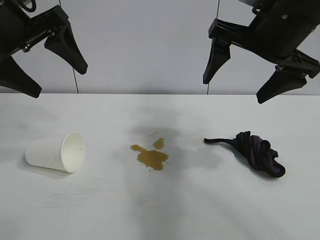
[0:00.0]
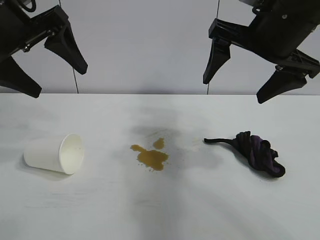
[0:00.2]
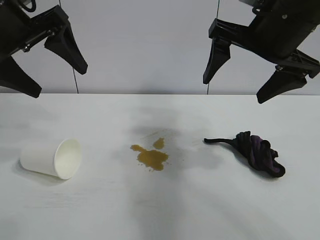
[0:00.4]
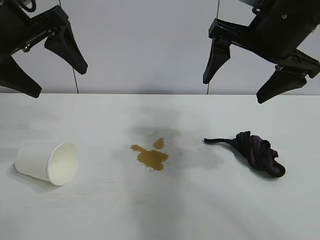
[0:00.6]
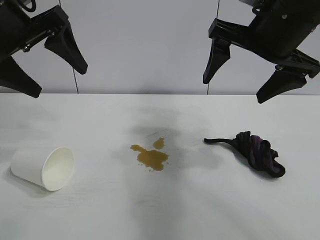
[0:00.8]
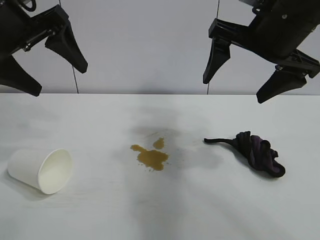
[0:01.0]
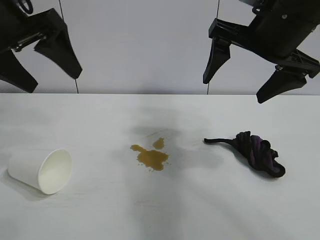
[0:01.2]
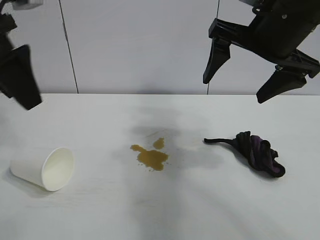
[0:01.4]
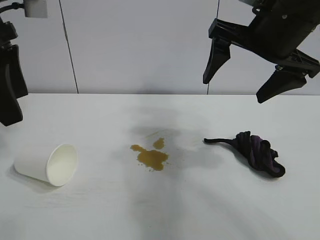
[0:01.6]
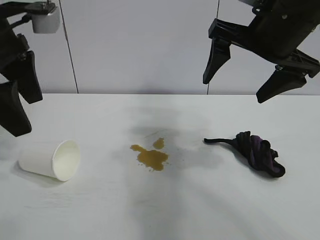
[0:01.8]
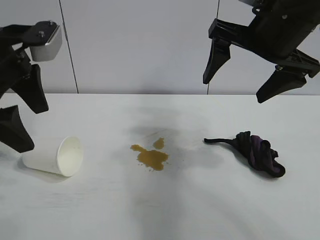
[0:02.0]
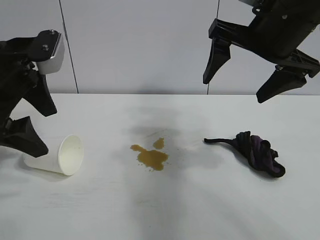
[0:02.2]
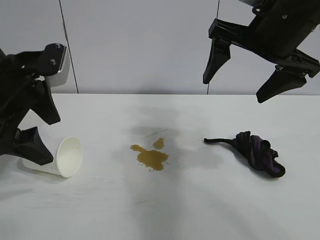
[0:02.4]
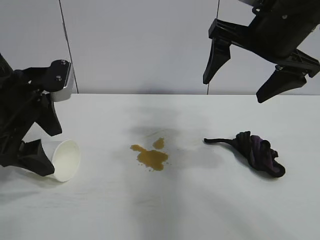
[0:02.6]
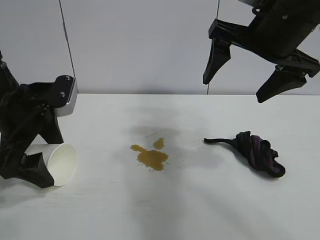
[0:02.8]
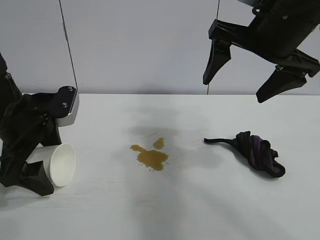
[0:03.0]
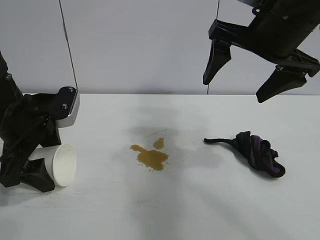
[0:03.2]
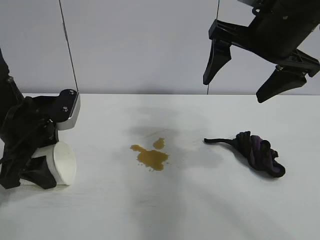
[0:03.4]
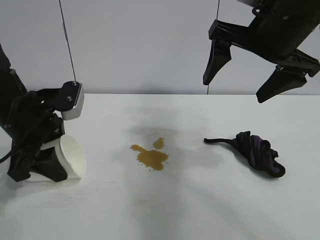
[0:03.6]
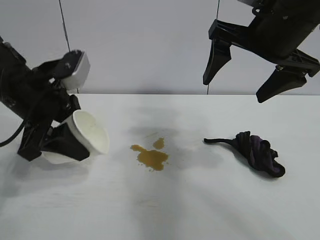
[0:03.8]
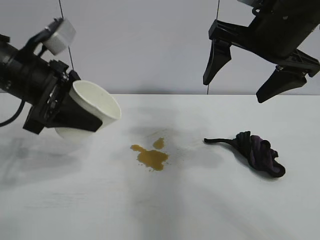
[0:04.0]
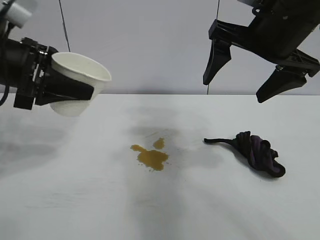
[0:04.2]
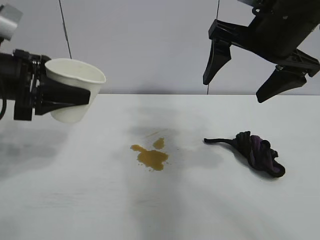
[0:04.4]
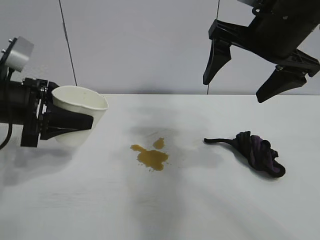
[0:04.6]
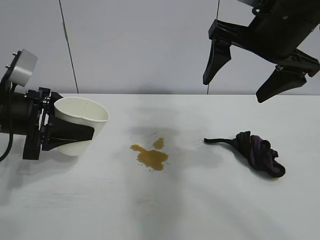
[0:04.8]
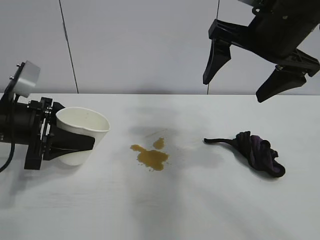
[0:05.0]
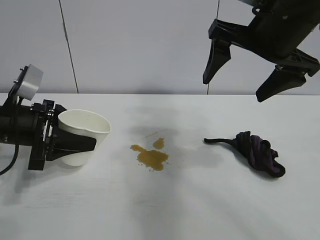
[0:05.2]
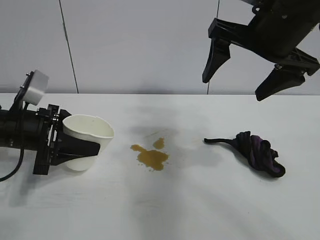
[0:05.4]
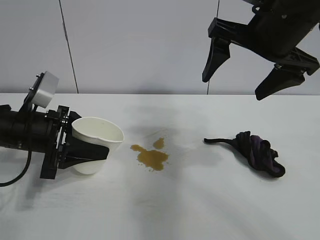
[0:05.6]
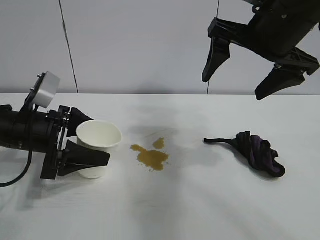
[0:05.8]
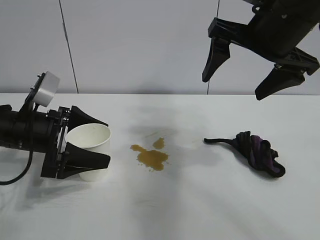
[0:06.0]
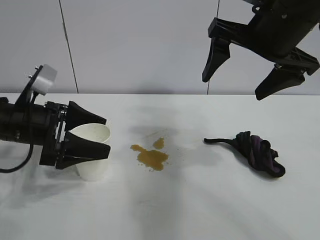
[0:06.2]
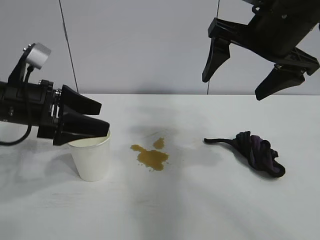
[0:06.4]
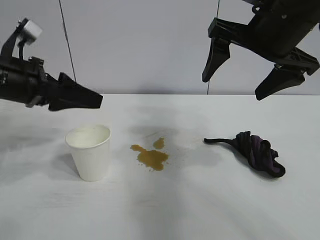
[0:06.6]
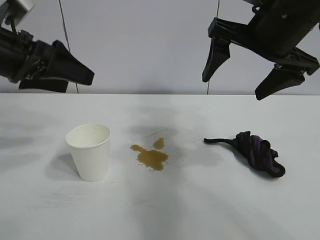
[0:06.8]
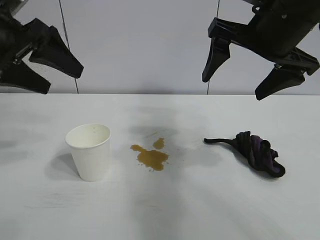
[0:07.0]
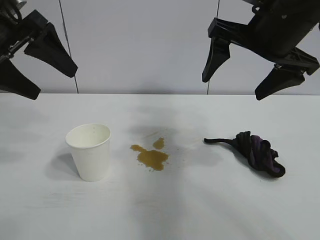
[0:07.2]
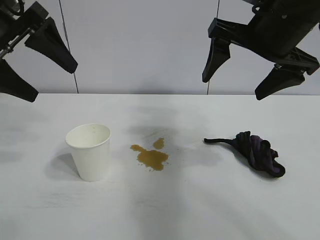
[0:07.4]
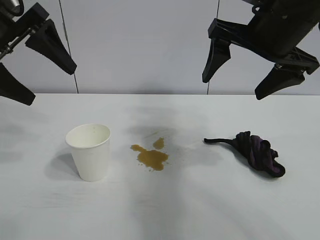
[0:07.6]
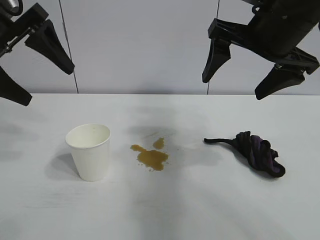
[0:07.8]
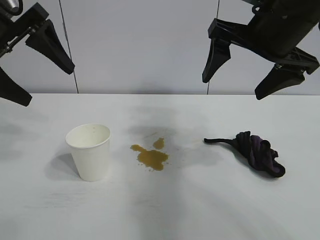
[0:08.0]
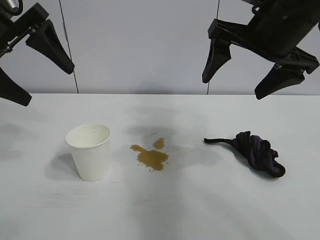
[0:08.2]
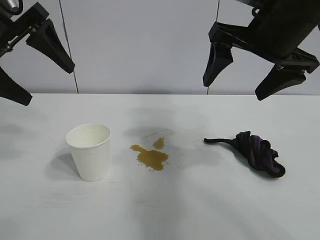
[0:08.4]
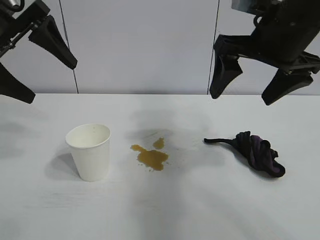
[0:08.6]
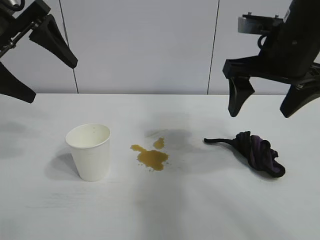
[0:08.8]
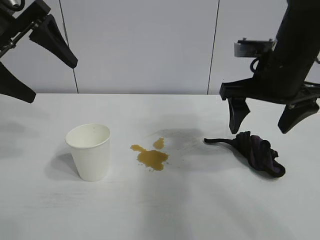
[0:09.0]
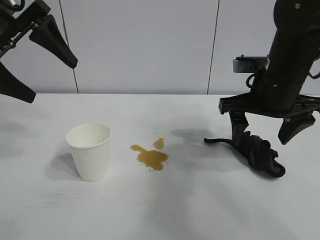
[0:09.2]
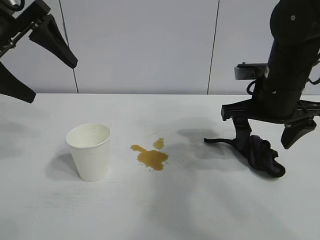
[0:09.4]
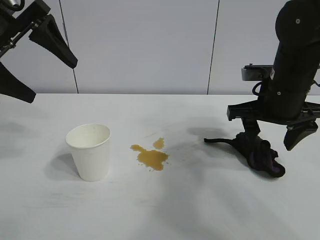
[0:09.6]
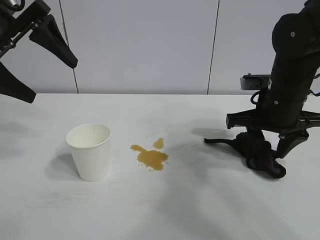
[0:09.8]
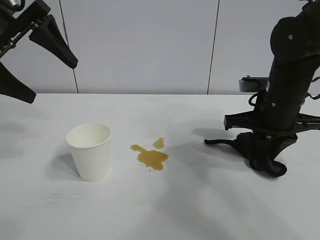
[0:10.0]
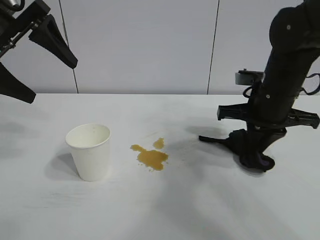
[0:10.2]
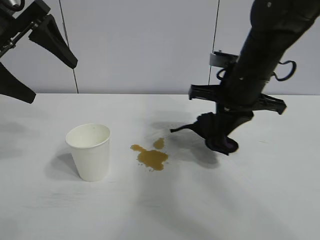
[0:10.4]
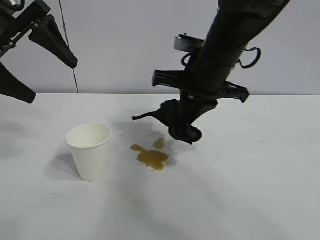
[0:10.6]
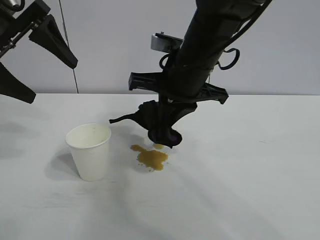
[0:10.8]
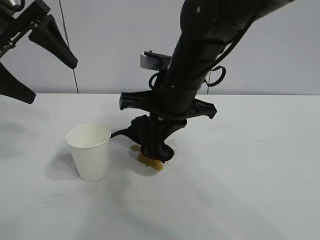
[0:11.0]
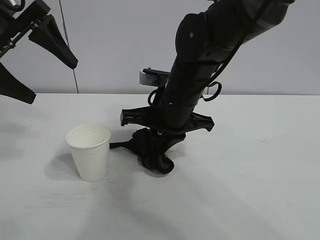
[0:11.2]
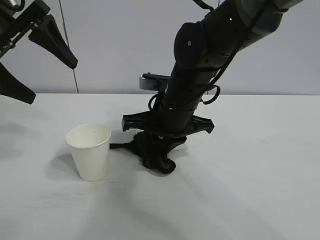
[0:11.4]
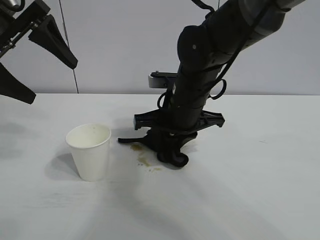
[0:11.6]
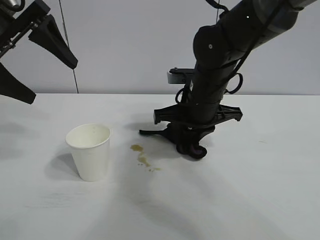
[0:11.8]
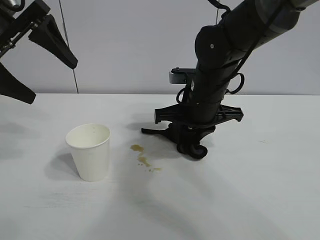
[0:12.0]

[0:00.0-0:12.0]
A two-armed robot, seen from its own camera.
Task of the whole recording: the left gripper pick up the fallen cup and place it upright, the right gripper grasp the black rag and wipe the stain on the table, the right gripper put the black rag back in its original position.
Step, 0:01.0 to 0:03.2: Grasp the paper cup with left gripper.
Step, 0:03.6 to 0:06.0: Stand the paper cup upright with left gripper.
Step, 0:06.2 to 0:10.0: Grasp the rag with right gripper.

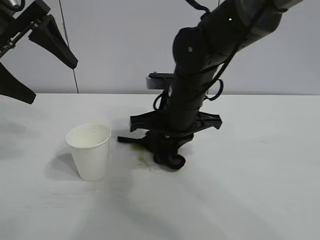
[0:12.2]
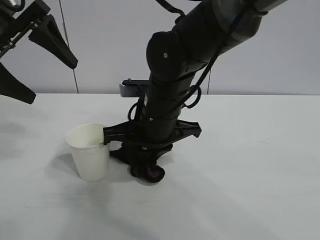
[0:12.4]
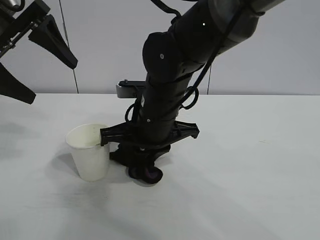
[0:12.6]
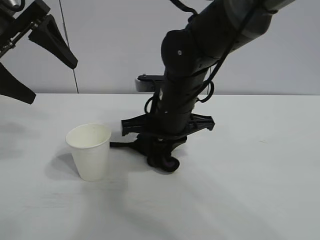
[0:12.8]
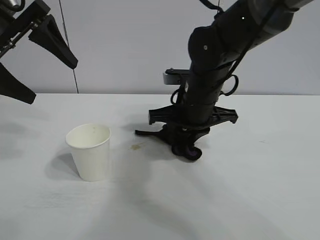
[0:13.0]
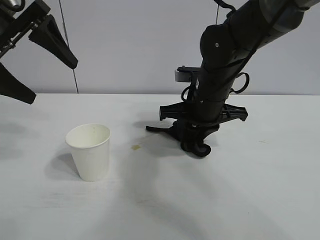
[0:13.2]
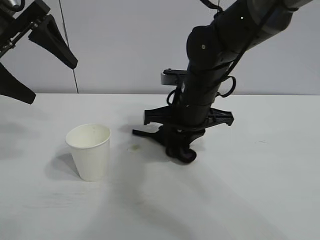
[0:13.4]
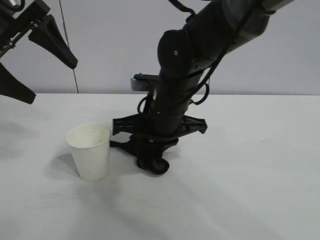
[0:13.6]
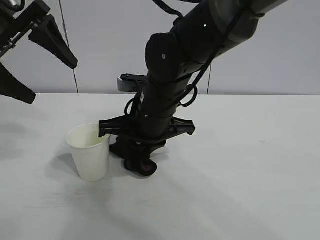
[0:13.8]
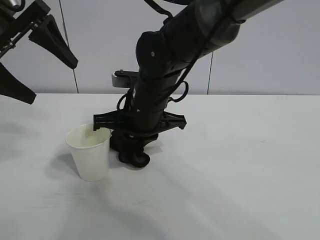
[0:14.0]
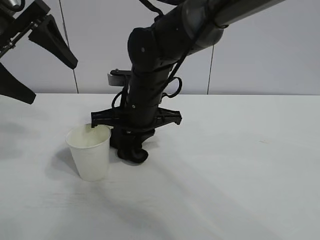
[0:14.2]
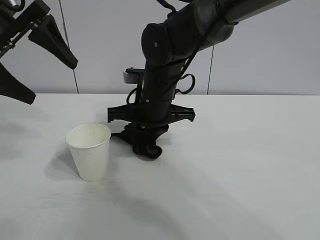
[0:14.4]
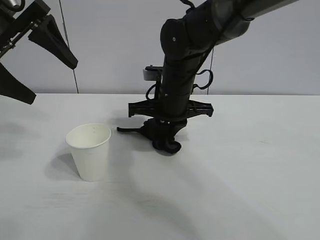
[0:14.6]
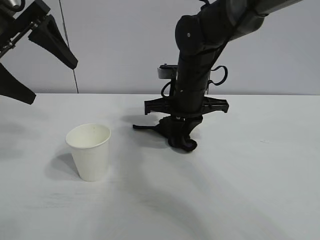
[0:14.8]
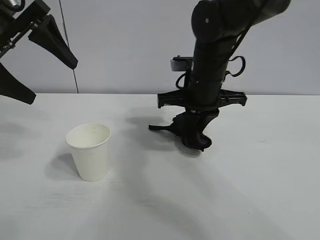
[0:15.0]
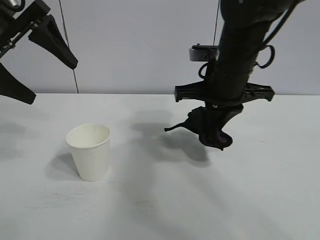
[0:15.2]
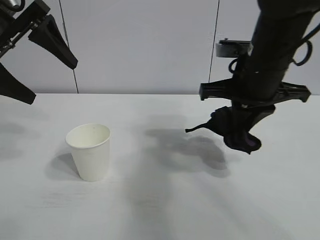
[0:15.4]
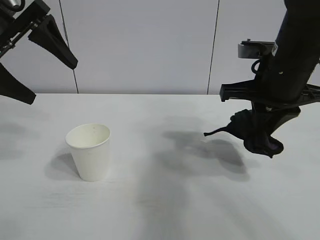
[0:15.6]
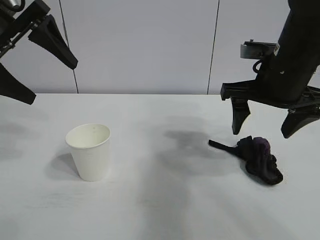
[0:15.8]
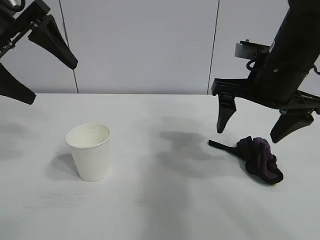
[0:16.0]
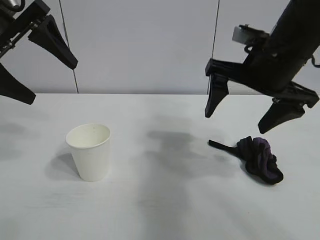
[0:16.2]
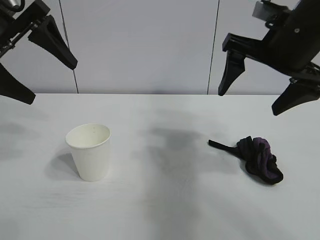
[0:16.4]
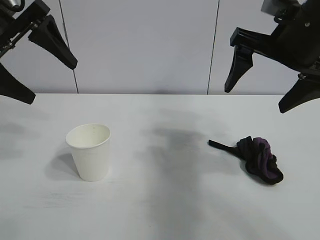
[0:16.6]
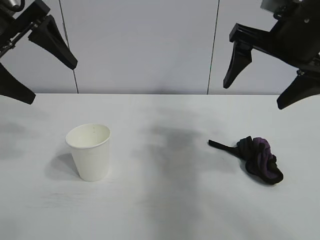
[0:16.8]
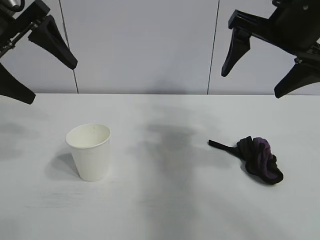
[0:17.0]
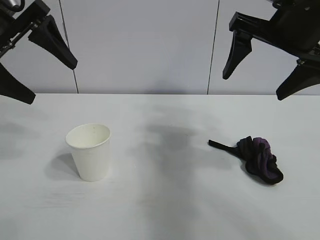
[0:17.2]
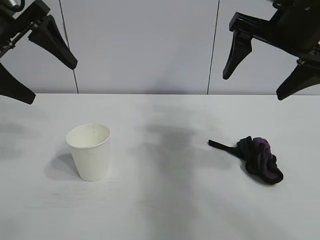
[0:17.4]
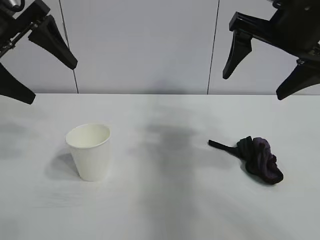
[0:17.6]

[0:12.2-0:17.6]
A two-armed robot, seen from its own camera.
Task of the whole recording: the left gripper pick up the fallen cup and place it upright, the right gripper grasp the black rag and wipe the stain on the table, the right gripper put the black rag back in its original position.
Step, 0:12.2 to 0:14.8: Wipe the stains off the table with the rag with right gripper.
Step, 0:15.0 to 0:15.6: Place the rag on the table with right gripper.

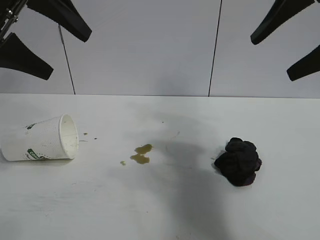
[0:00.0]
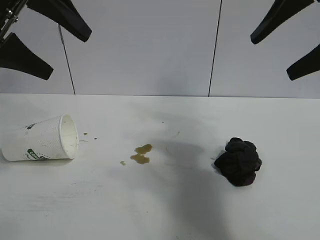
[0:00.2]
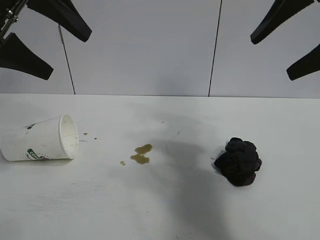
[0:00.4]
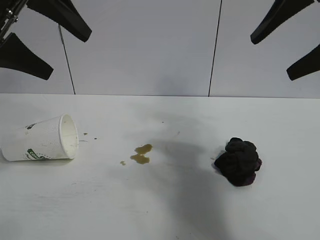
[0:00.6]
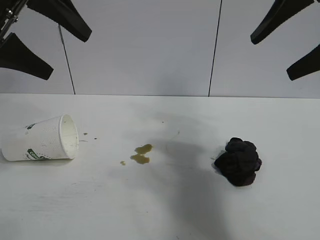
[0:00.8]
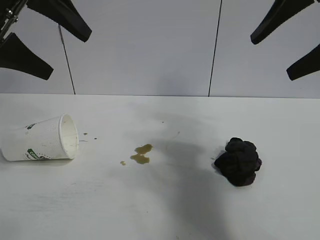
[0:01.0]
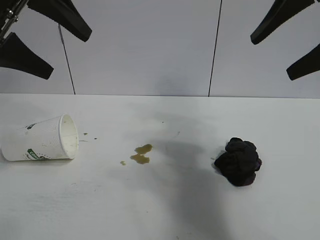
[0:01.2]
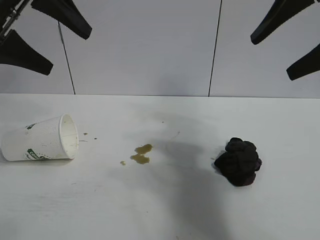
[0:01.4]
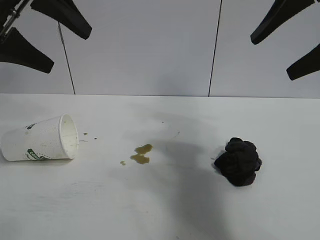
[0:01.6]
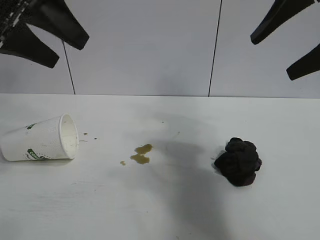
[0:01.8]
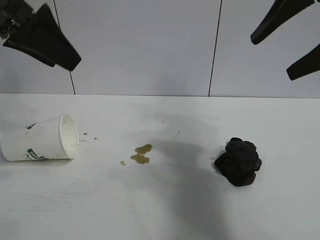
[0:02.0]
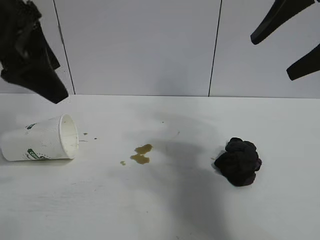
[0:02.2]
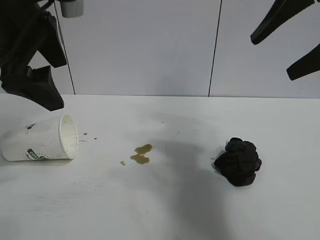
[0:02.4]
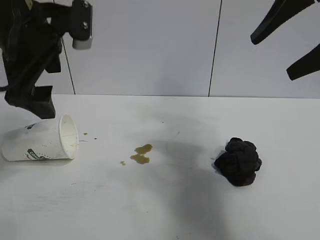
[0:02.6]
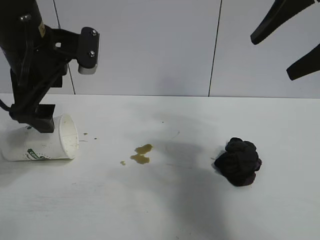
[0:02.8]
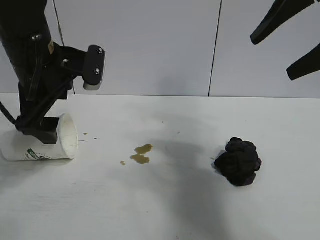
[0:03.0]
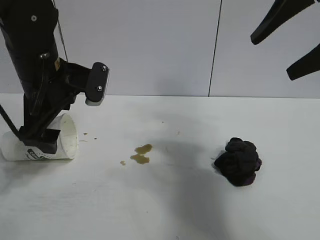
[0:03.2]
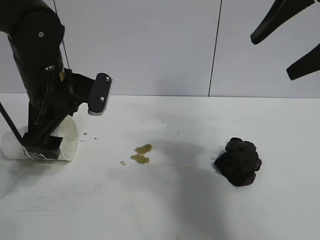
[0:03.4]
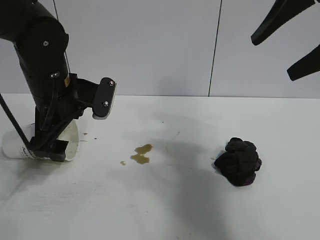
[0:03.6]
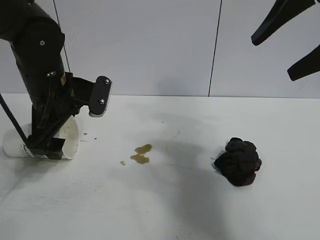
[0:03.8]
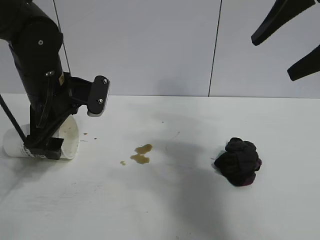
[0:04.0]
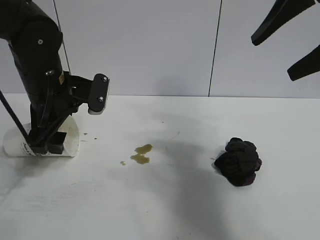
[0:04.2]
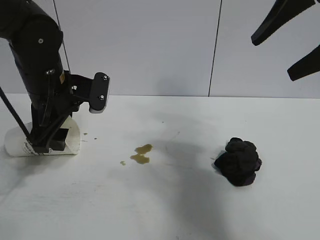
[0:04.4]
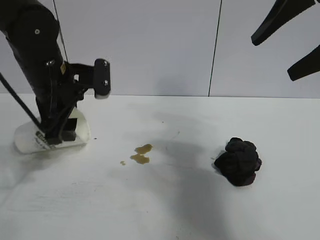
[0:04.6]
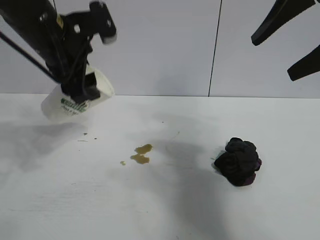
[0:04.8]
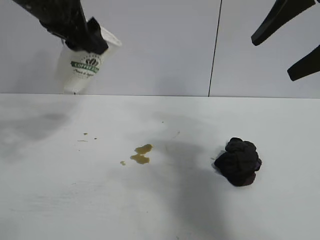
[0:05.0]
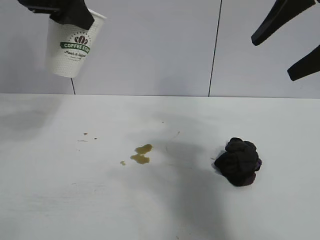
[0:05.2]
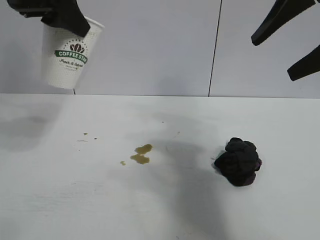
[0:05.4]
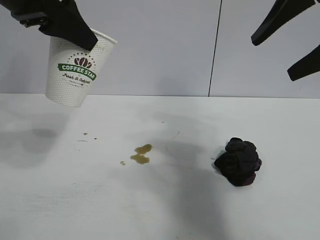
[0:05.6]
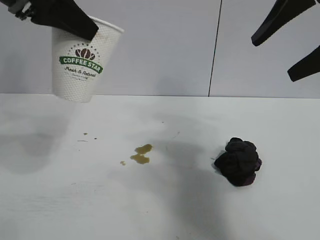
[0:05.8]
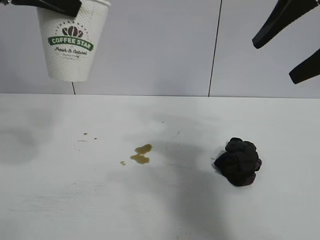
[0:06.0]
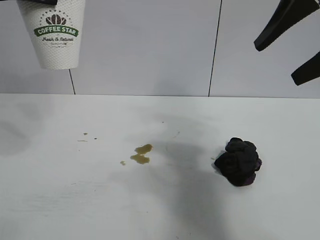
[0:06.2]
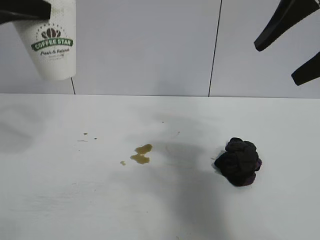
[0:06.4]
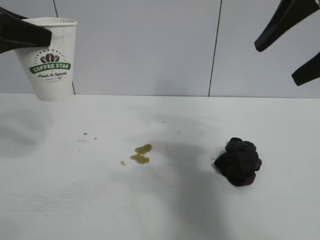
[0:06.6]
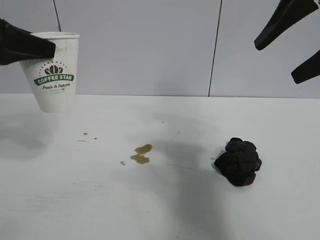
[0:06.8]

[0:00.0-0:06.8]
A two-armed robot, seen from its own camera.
Task of the whole recording: the left gripper pick up the fallen cup and place it upright, the right gripper grasp the black rag and wipe the stain on the table, the right gripper put the black rag back in its original position.
Step, 0:01.2 to 0:04.2: Grasp the paper cup with left gripper.
